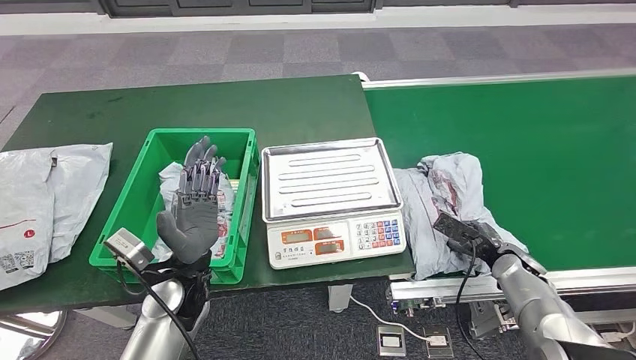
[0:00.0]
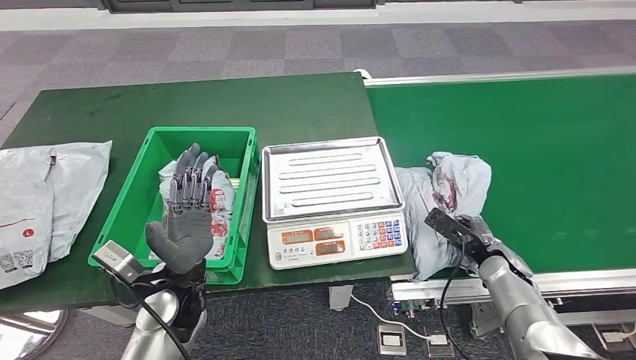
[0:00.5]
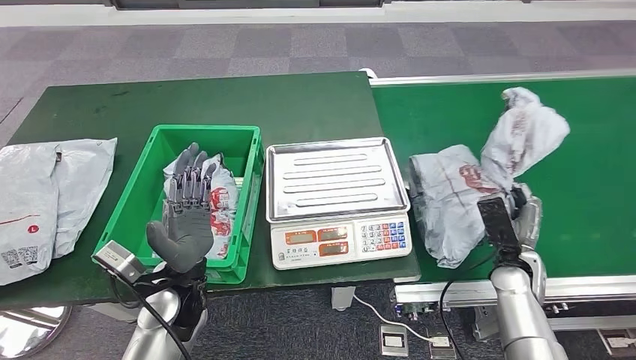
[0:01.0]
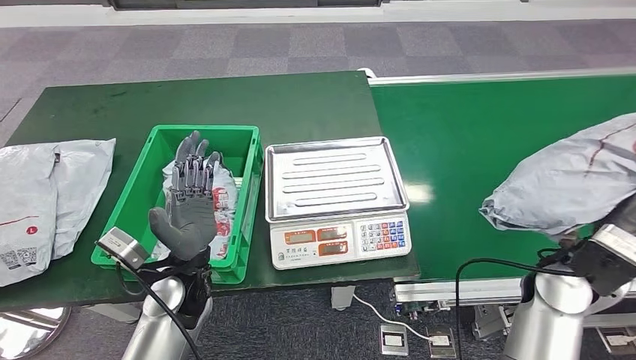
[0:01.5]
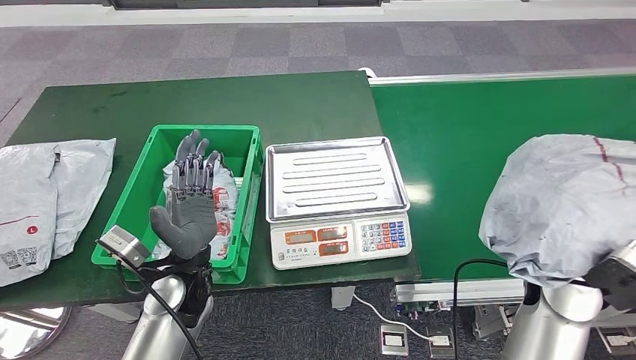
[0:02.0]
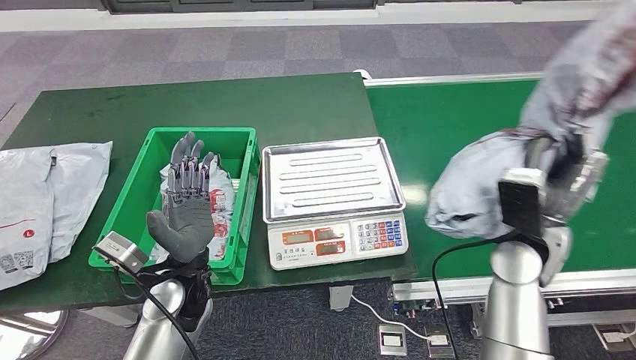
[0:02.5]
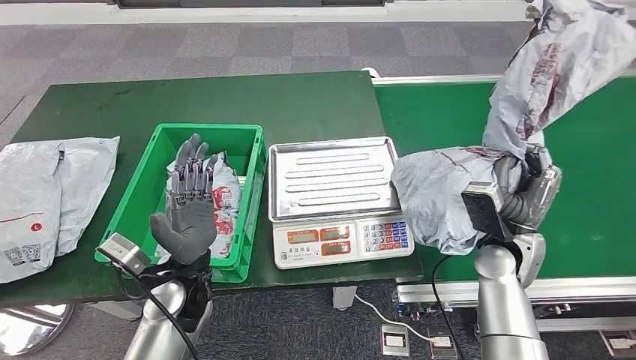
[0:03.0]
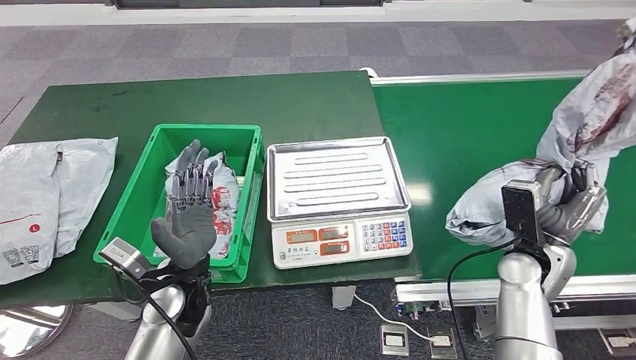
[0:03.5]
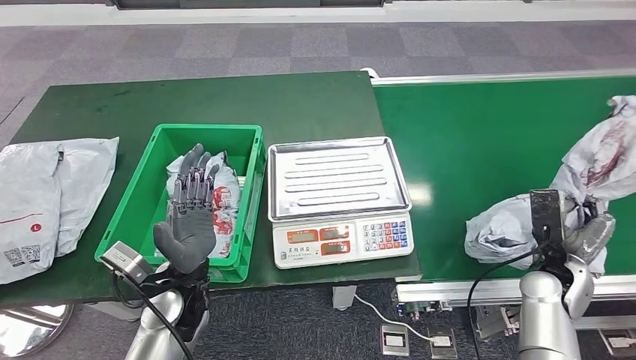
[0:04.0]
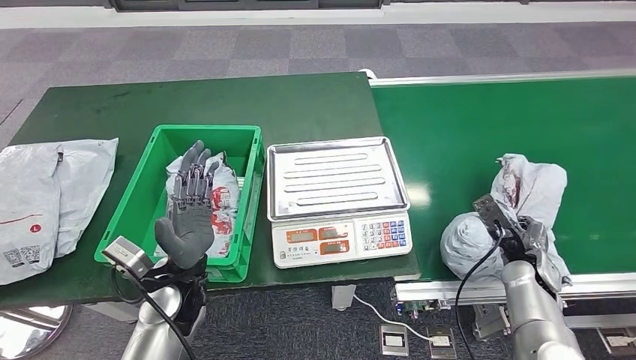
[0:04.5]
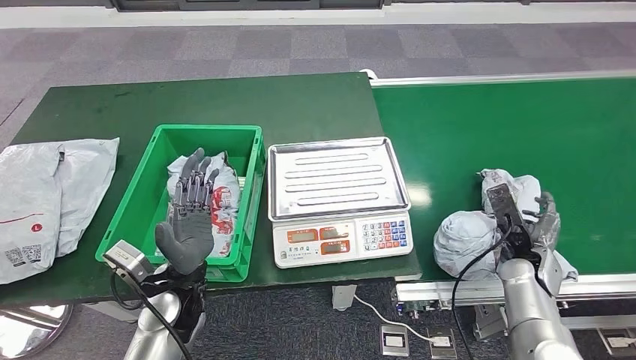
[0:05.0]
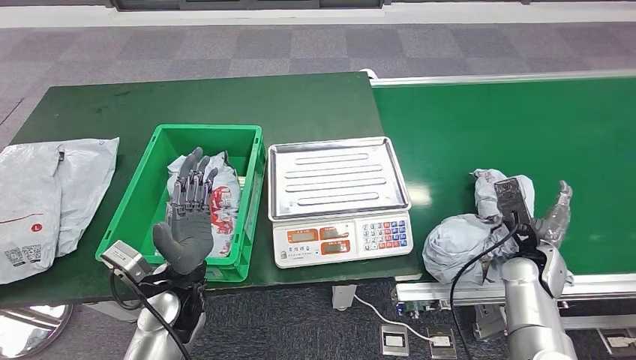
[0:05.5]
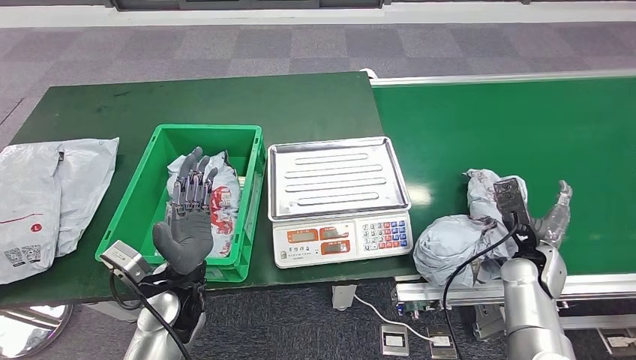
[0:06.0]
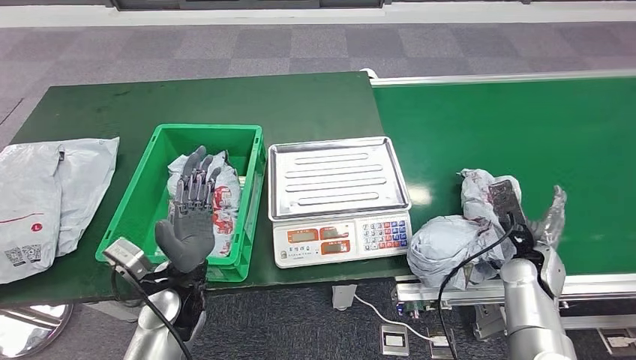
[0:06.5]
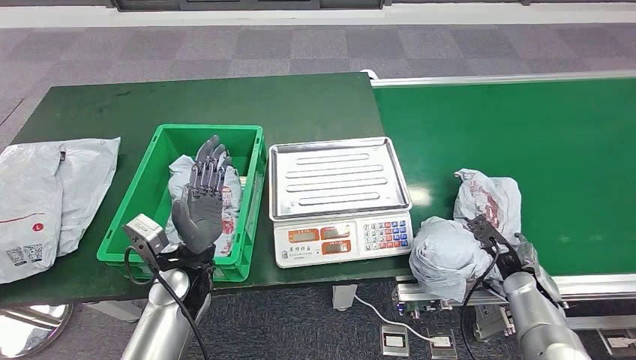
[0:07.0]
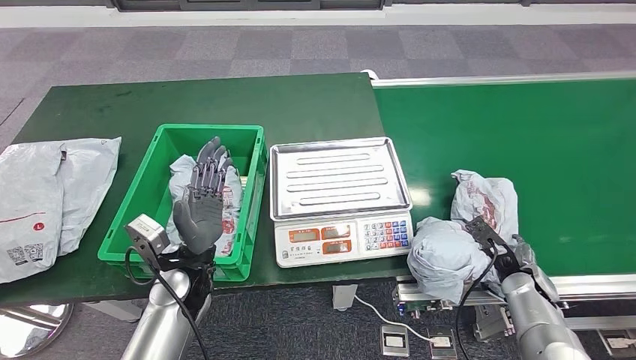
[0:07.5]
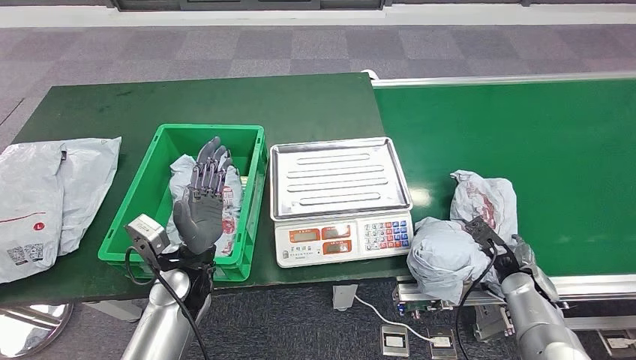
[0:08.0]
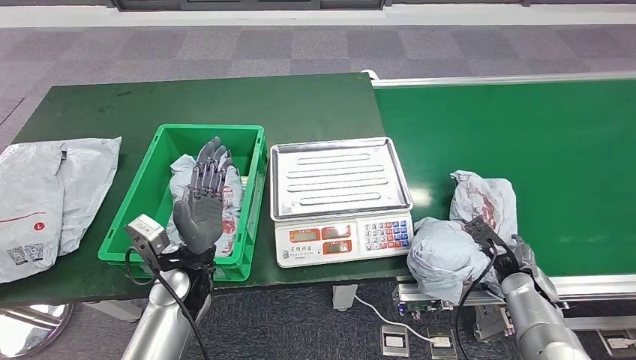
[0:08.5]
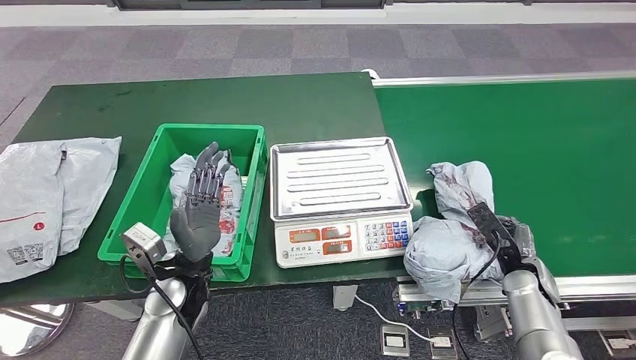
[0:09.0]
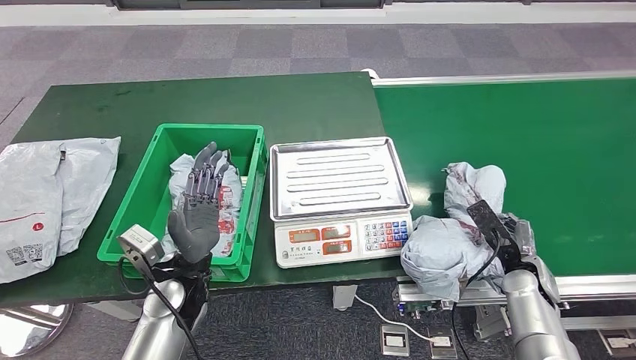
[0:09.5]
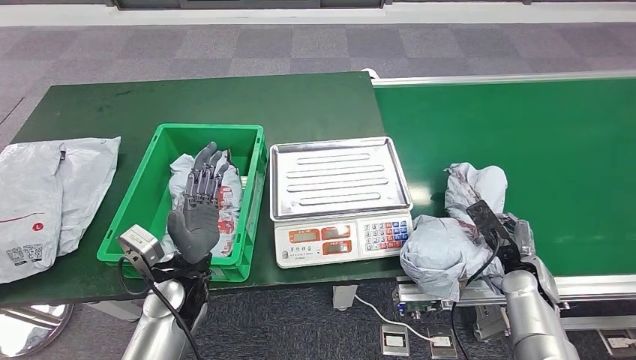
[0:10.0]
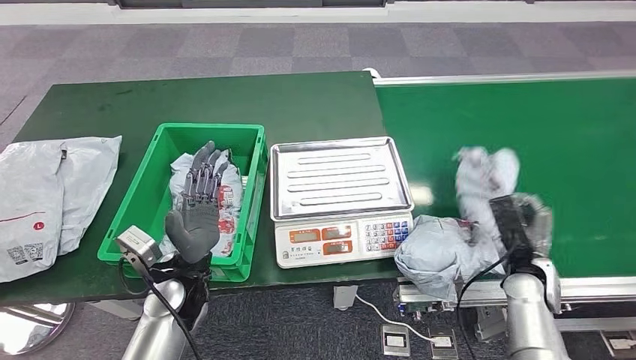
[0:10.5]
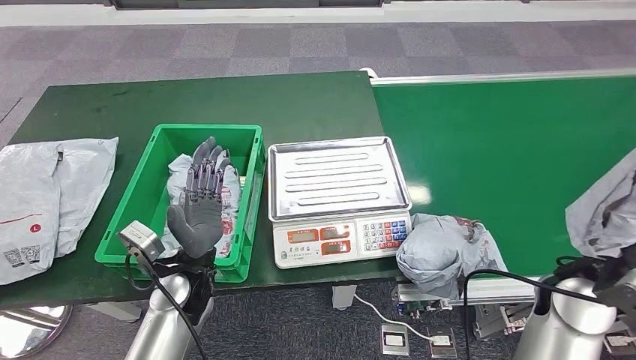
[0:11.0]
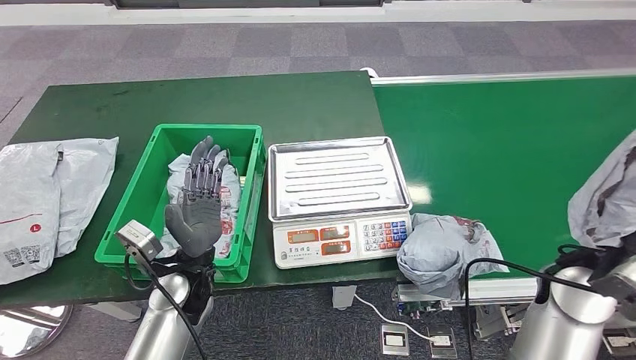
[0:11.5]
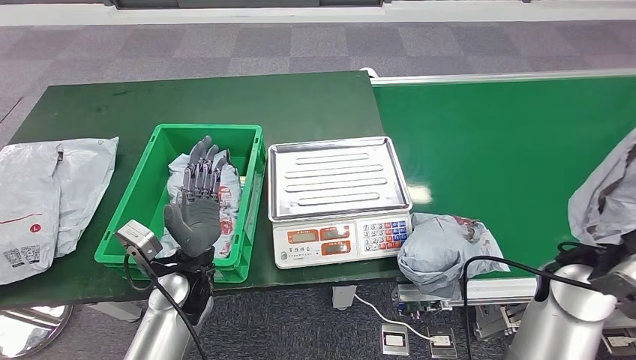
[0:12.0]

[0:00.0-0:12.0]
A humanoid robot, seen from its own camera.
0:06.0 to 0:08.0: The right hand heads downward, covering about 5 cm.
0:10.0 to 0:12.0: The right hand shifts roughly 20 cm upward.

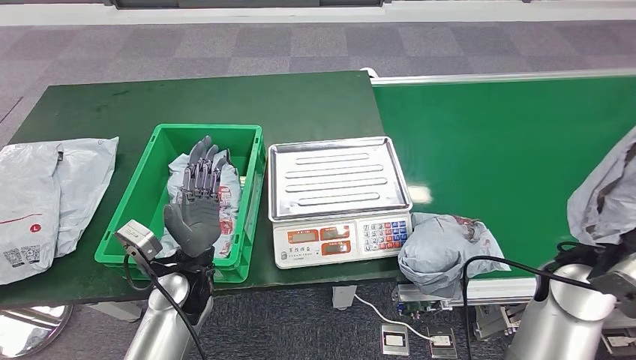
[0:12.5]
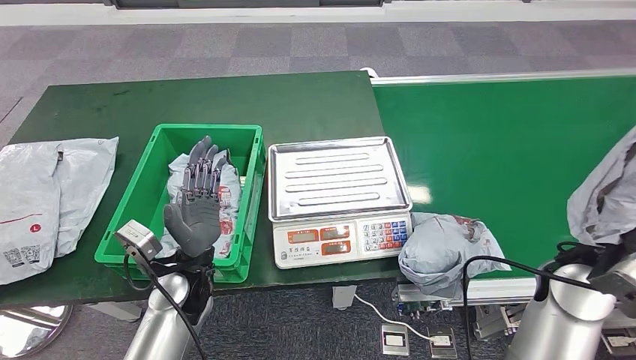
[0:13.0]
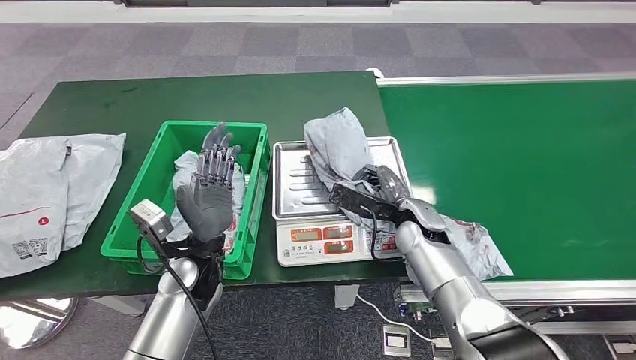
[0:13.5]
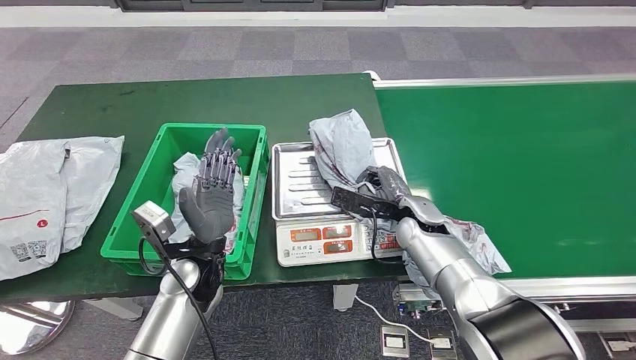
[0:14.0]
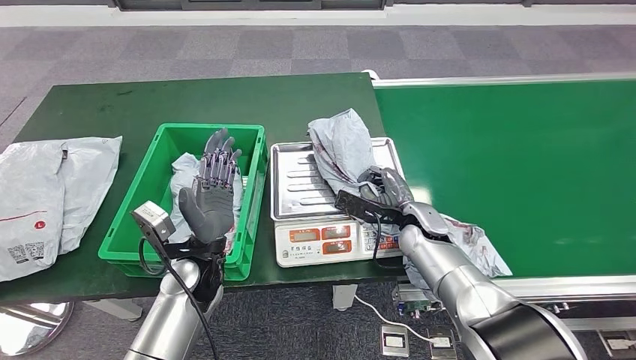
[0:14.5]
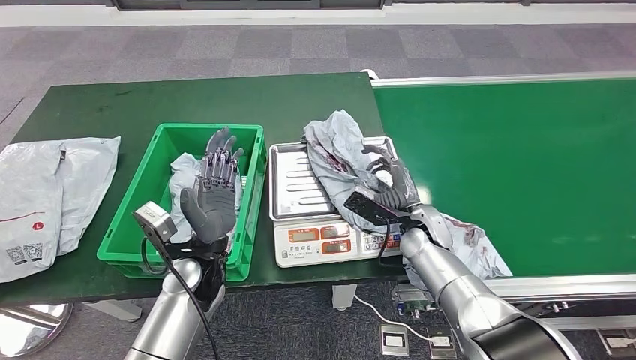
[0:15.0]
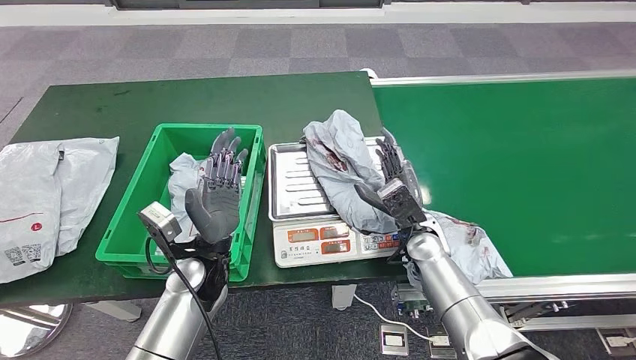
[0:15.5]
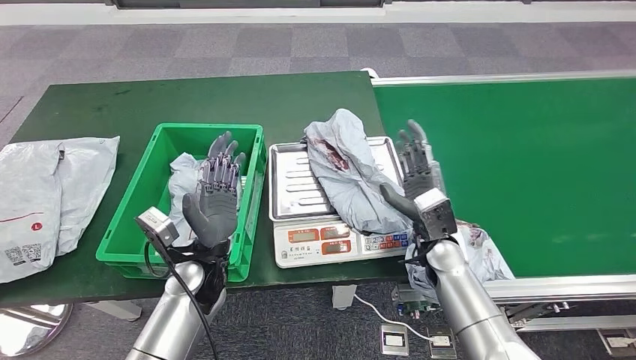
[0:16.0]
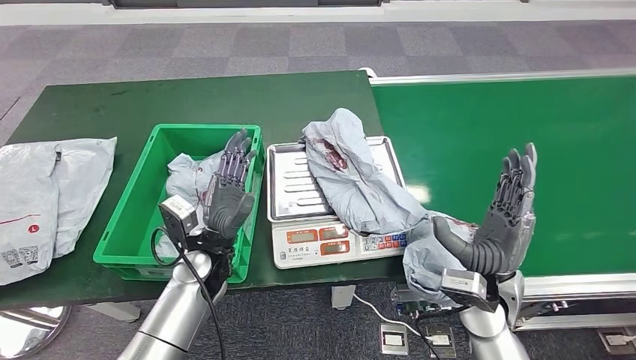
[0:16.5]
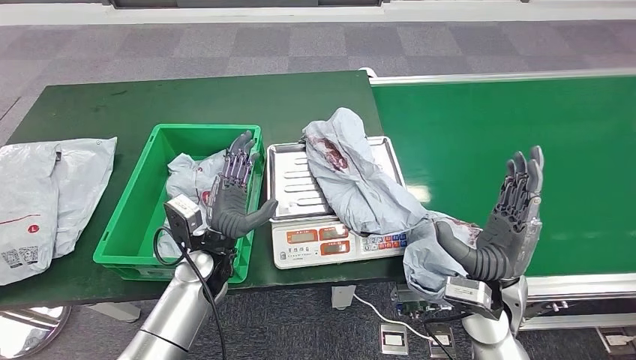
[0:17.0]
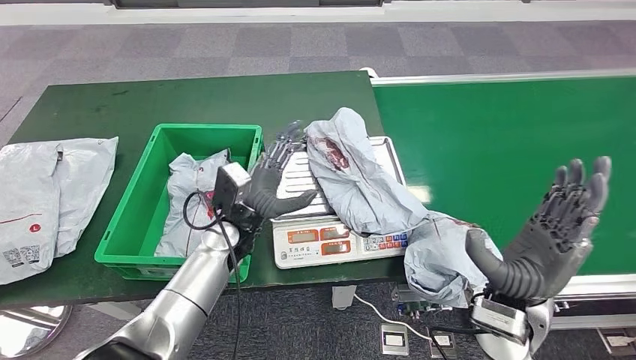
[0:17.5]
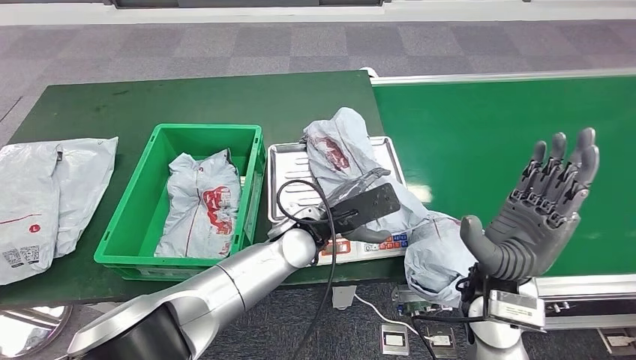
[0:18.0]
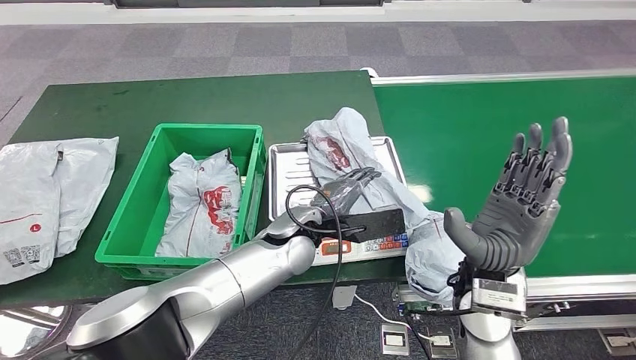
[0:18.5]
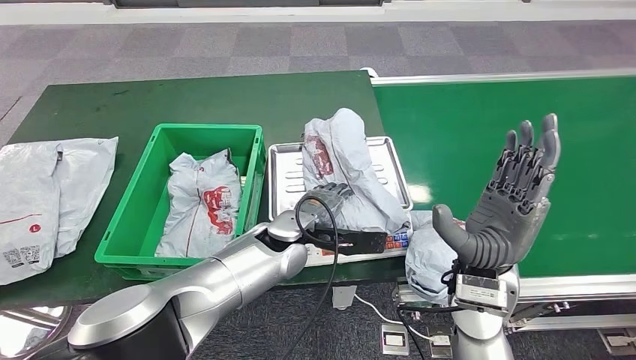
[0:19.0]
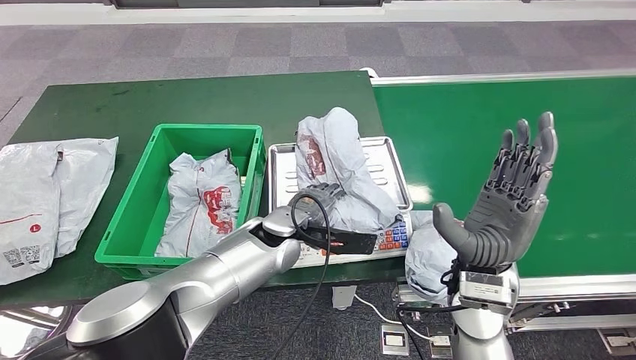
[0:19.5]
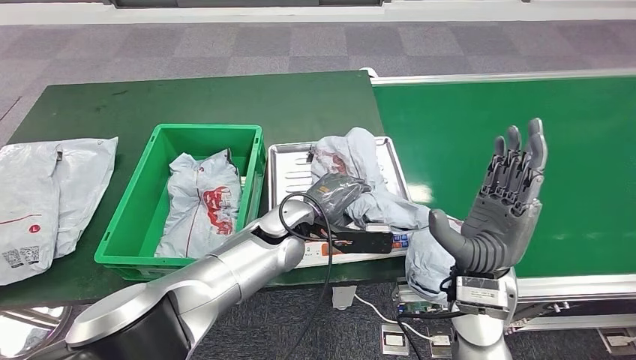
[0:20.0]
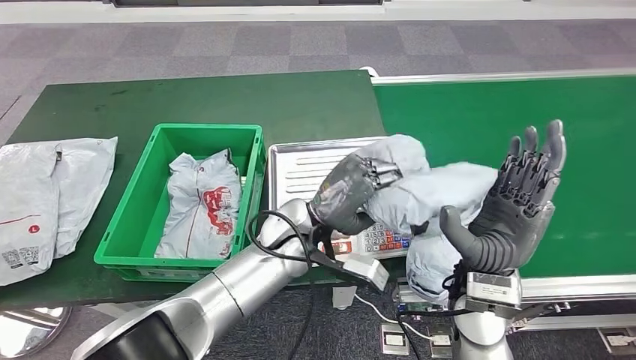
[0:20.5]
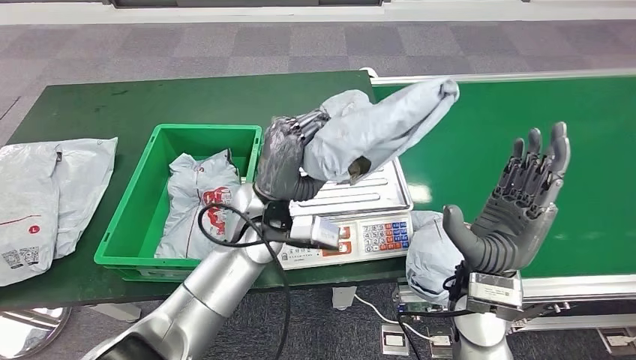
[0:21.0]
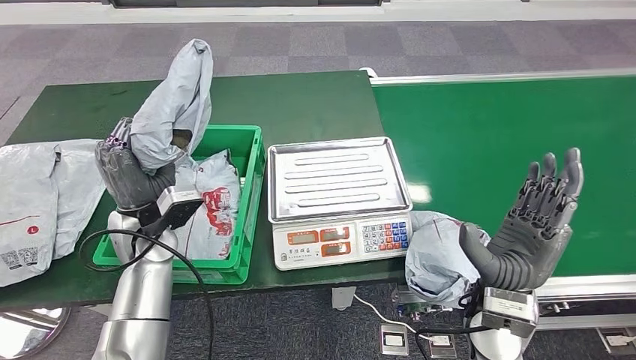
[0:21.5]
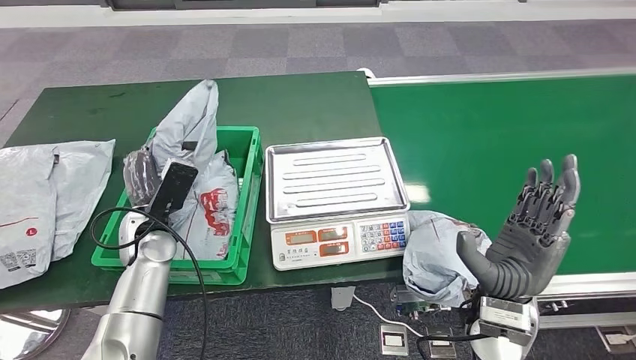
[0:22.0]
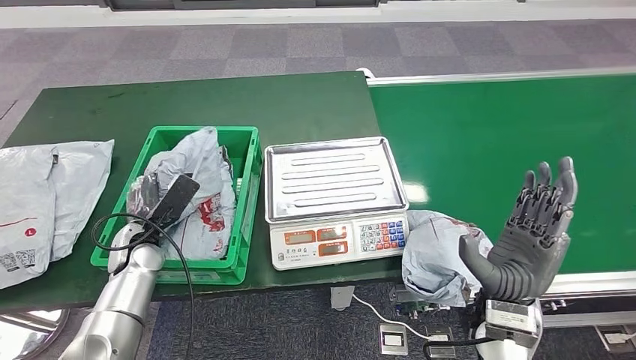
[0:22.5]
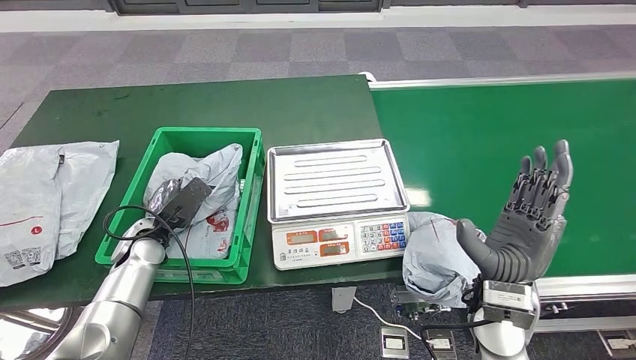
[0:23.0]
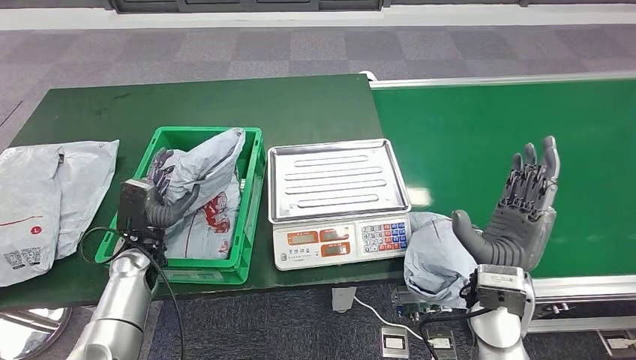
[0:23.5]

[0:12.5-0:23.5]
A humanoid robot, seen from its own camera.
Step, 0:13.0 to 0:14.0: Place the parcel onto the inbound machine.
Step, 0:17.5 to 0:20.0: Pick up the parcel from the inbound machine.
0:14.5 to 0:16.0: The right hand is displaced backward by about 5 cm.
